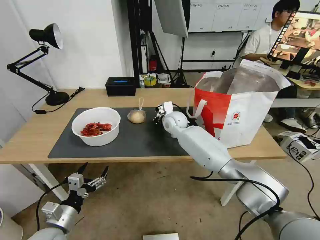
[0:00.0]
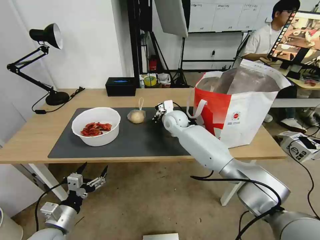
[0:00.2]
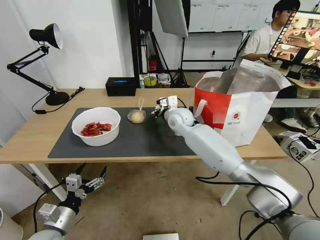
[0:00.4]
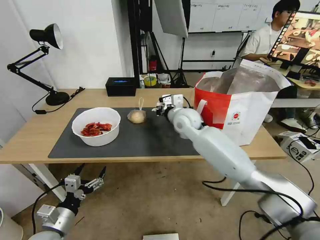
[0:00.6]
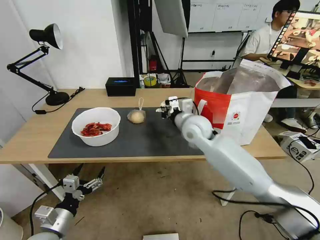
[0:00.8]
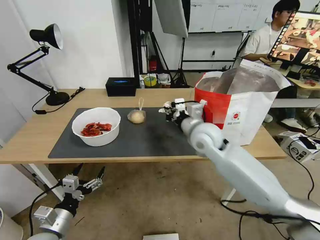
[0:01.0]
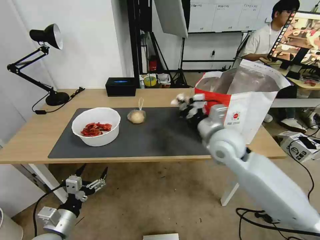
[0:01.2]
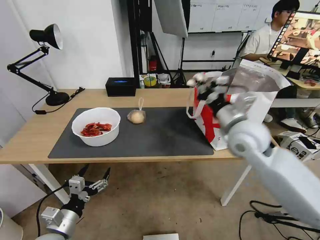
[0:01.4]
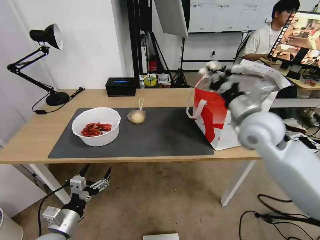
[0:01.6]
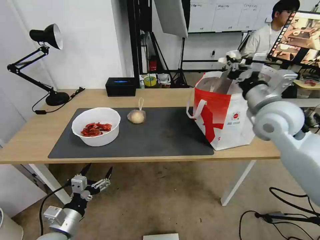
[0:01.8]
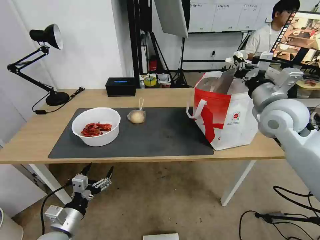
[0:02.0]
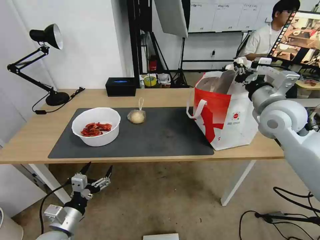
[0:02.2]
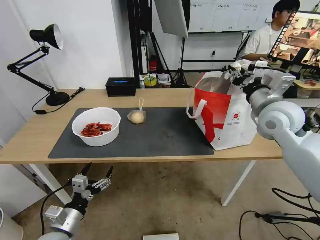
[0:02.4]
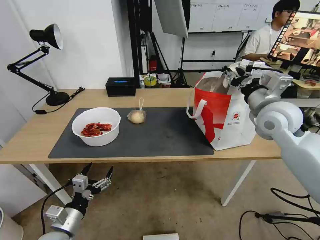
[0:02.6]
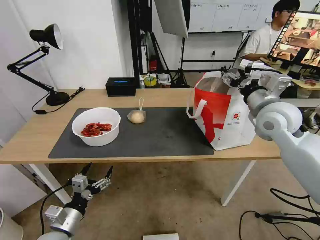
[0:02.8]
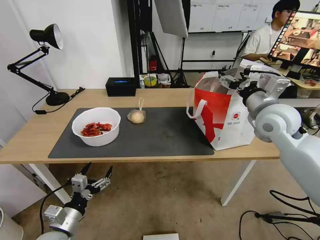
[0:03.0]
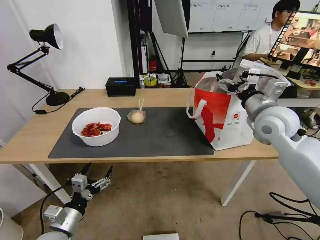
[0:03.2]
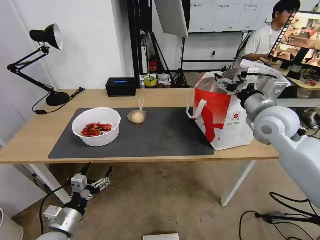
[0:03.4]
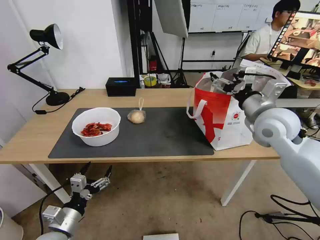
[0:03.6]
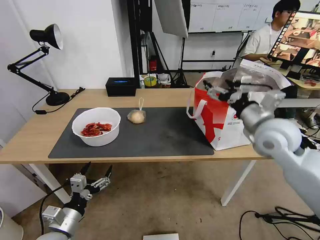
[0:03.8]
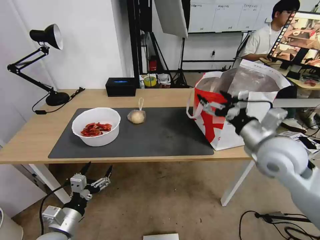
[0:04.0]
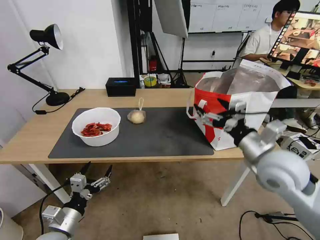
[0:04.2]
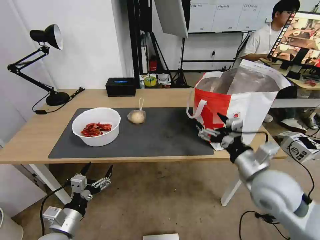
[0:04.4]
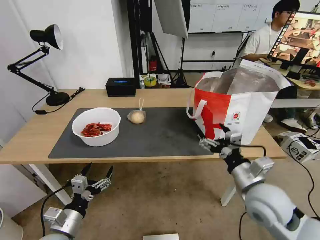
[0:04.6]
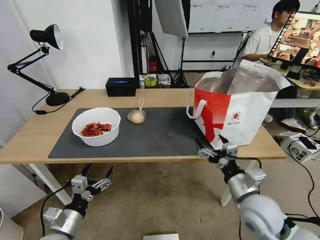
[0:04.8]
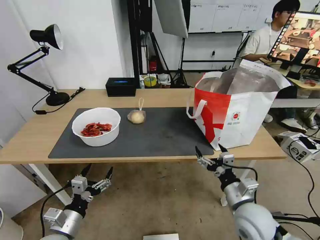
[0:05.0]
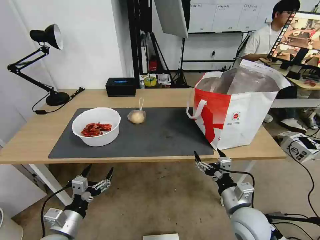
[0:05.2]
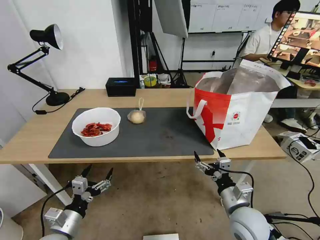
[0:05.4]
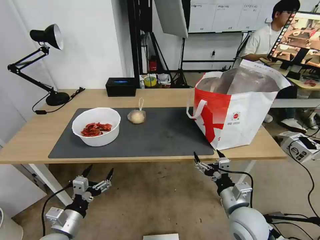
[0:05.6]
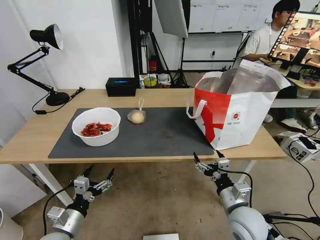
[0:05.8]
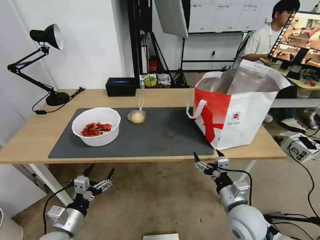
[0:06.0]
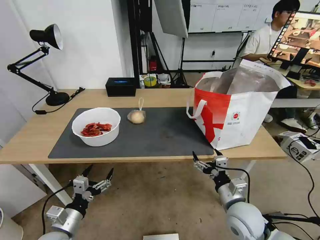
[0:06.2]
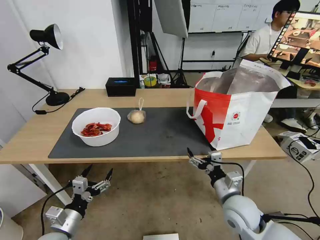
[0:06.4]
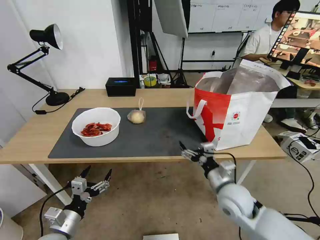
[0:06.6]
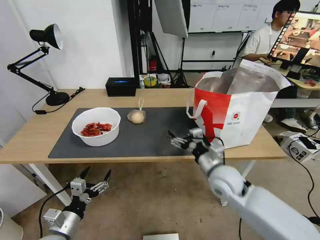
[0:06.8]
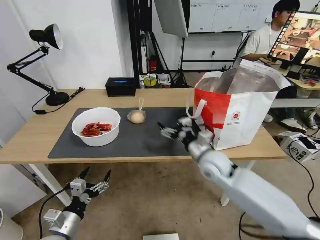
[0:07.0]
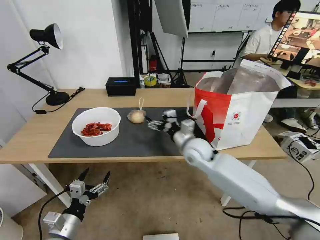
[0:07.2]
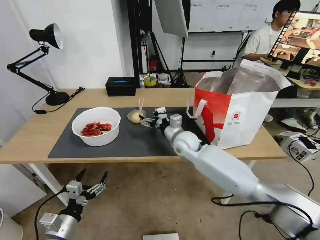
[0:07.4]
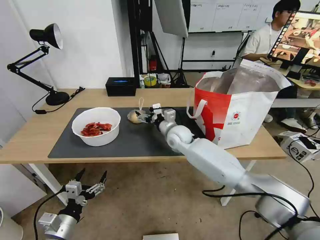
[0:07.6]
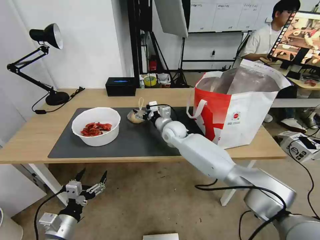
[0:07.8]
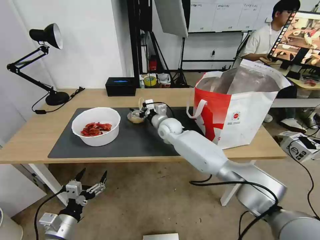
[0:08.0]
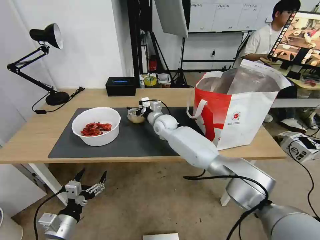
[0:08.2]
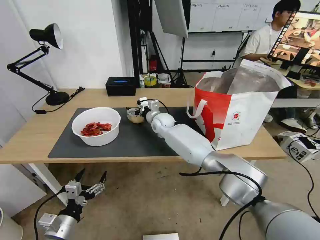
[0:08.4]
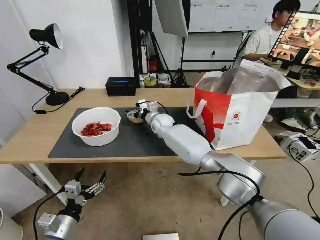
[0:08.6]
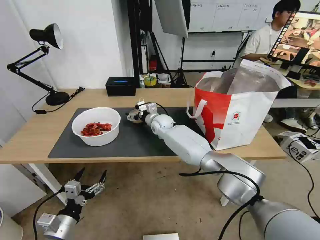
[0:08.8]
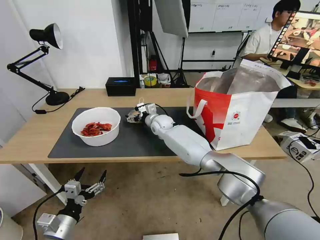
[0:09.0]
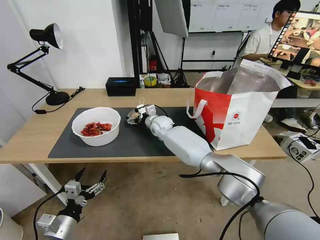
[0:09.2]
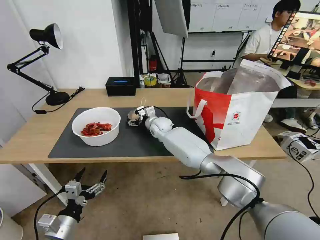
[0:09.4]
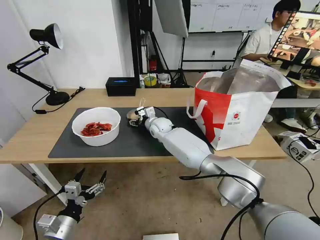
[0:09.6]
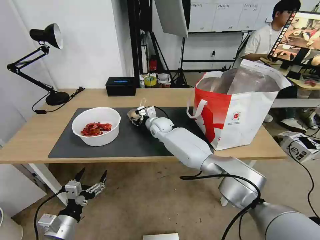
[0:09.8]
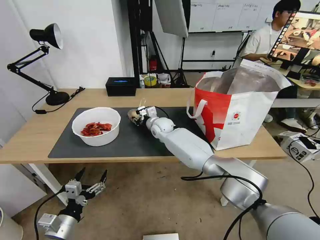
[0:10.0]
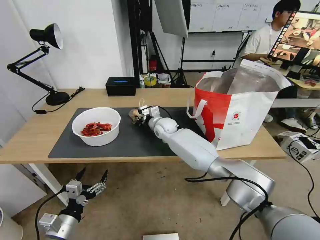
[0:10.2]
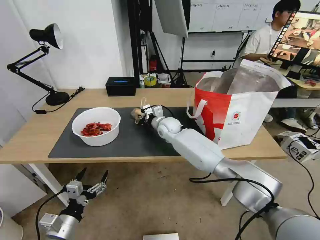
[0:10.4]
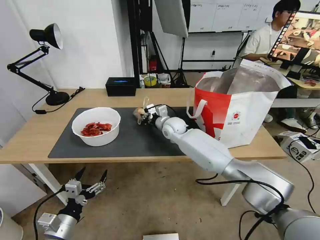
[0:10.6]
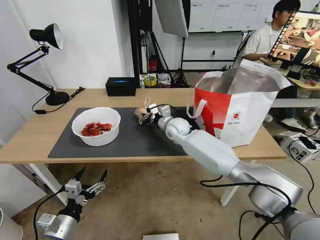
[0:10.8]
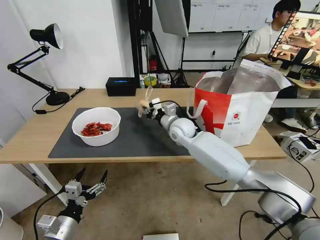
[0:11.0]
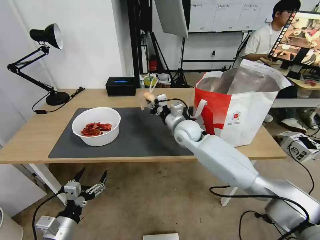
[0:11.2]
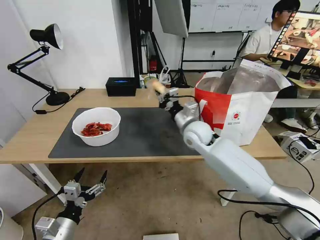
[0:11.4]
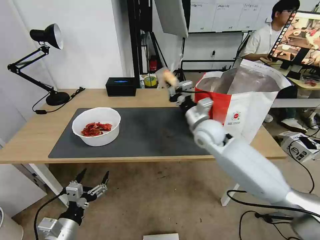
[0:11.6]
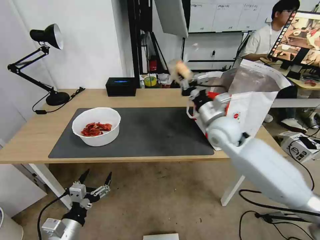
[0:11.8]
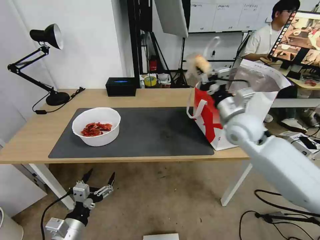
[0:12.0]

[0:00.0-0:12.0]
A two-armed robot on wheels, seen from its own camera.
Task of the whole recording: Pick up the trash from the table and place it into the takeout bag.
0:00.0 to 0:01.6: The right gripper heads to the right, backward and upward, covering roughly 30 cm.
0:01.6 to 0:03.0: The right gripper changes place by approximately 5 cm, and opens.
0:03.0 to 0:04.4: The right gripper shifts roughly 15 cm backward and downward.
0:04.4 to 0:06.0: The right gripper goes roughly 15 cm downward.
0:06.0 to 0:07.6: The right gripper shifts roughly 35 cm forward and to the left.
0:07.6 to 0:09.0: The right gripper is displaced forward and to the left by approximately 10 cm.
0:09.0 to 0:10.4: The right gripper closes its fingers.
0:10.4 to 0:12.0: The right gripper is displaced to the right, backward and upward by approximately 30 cm.

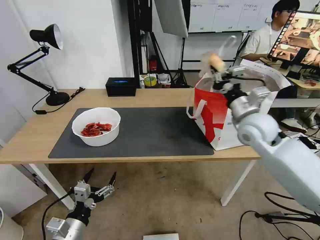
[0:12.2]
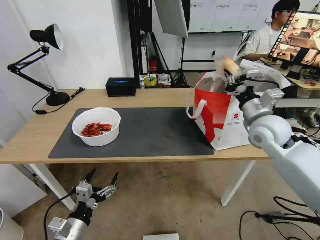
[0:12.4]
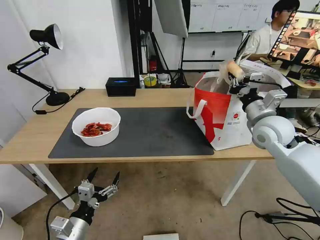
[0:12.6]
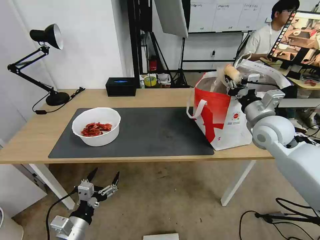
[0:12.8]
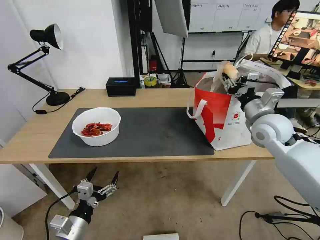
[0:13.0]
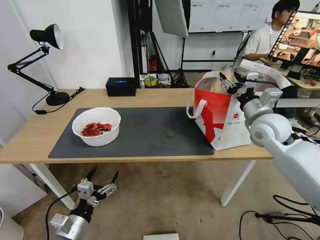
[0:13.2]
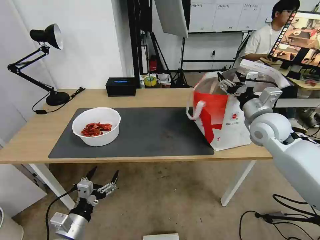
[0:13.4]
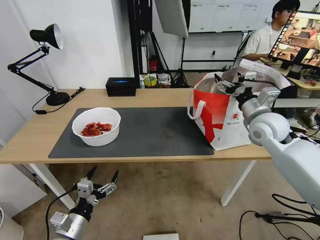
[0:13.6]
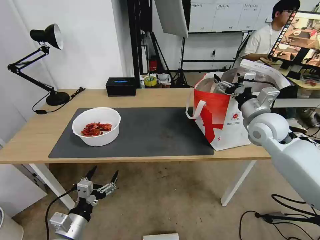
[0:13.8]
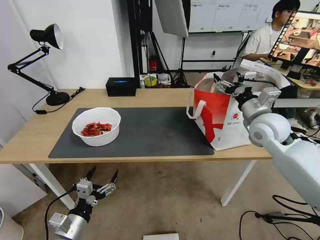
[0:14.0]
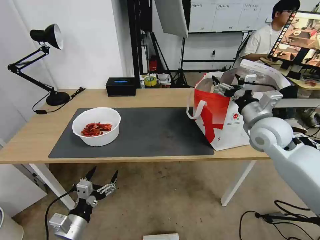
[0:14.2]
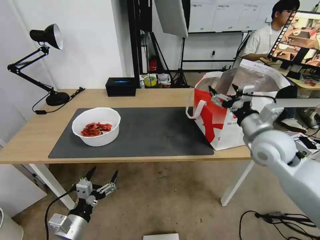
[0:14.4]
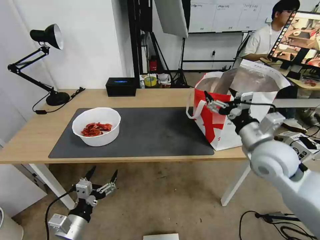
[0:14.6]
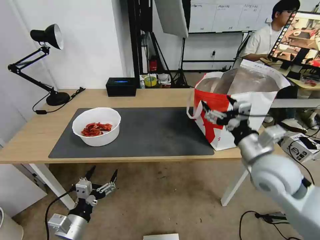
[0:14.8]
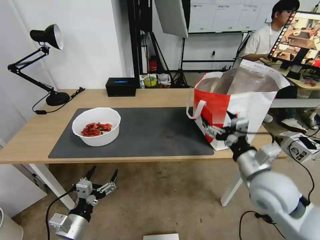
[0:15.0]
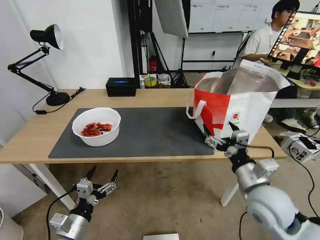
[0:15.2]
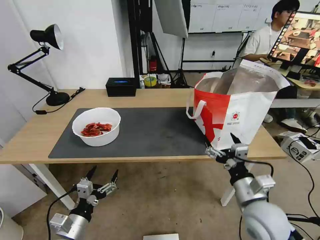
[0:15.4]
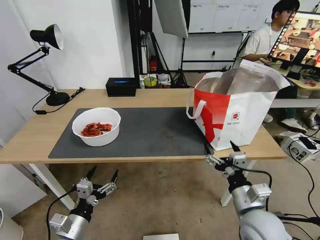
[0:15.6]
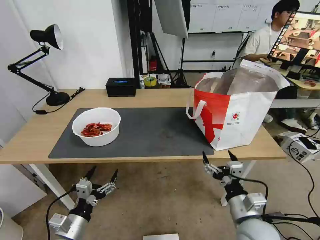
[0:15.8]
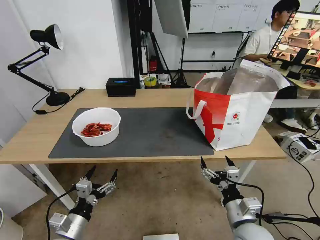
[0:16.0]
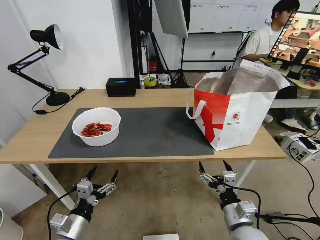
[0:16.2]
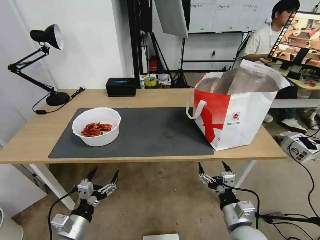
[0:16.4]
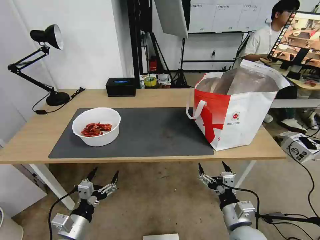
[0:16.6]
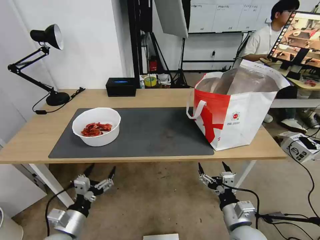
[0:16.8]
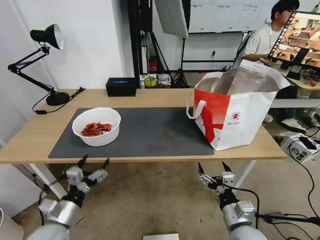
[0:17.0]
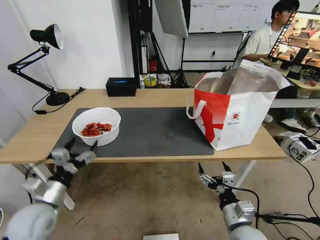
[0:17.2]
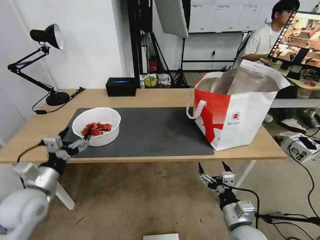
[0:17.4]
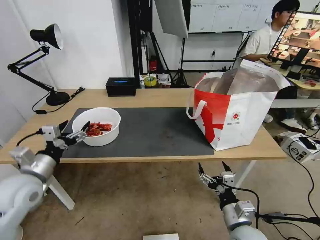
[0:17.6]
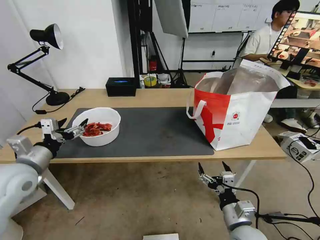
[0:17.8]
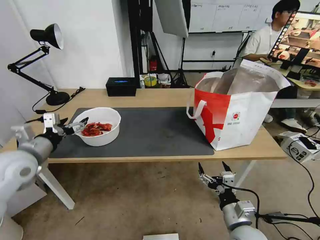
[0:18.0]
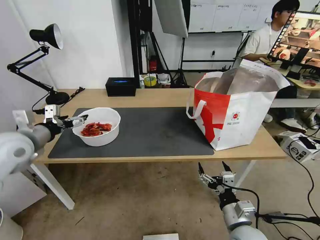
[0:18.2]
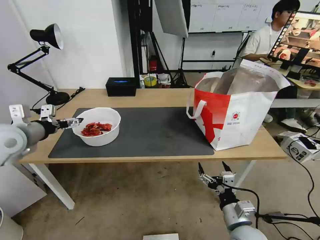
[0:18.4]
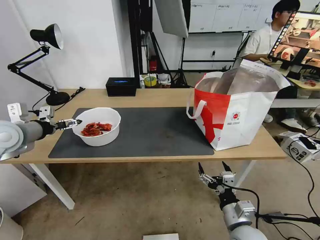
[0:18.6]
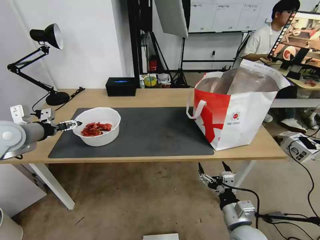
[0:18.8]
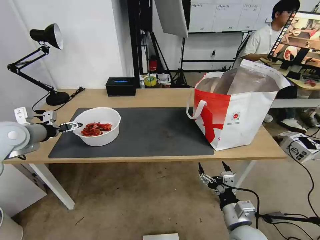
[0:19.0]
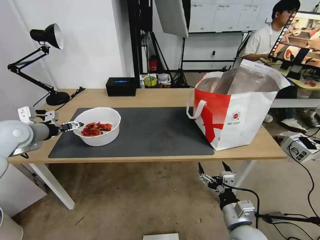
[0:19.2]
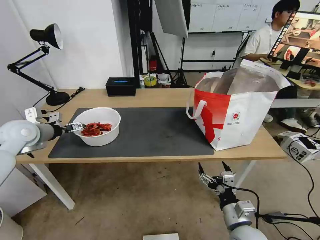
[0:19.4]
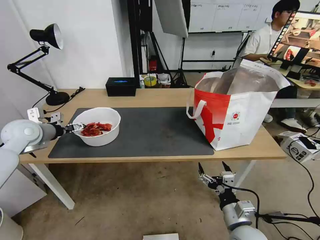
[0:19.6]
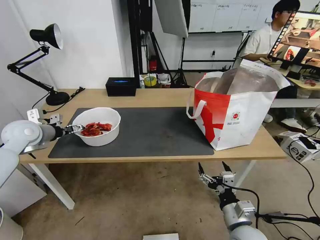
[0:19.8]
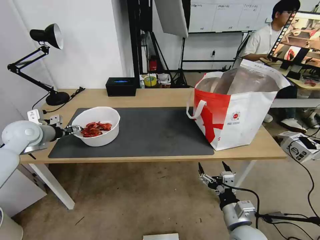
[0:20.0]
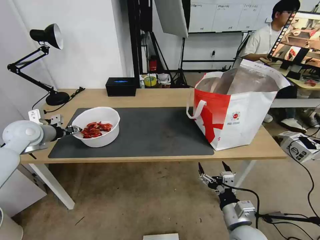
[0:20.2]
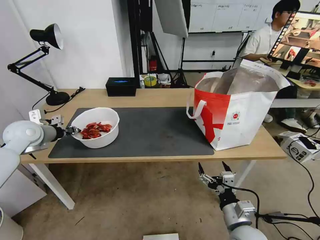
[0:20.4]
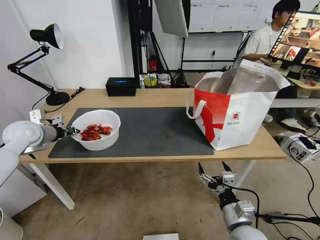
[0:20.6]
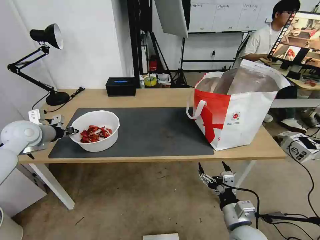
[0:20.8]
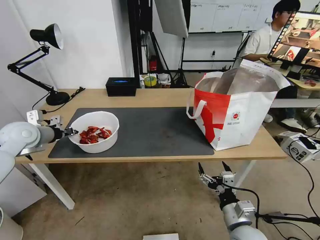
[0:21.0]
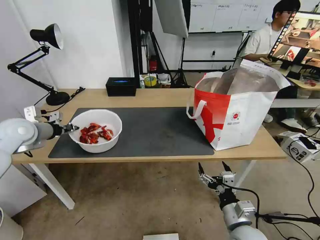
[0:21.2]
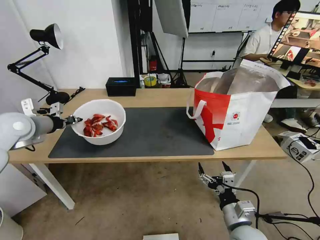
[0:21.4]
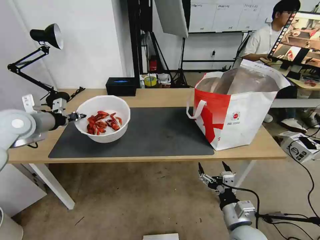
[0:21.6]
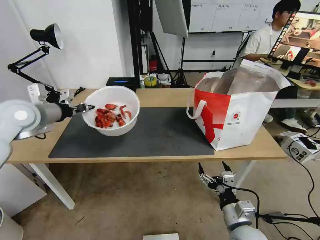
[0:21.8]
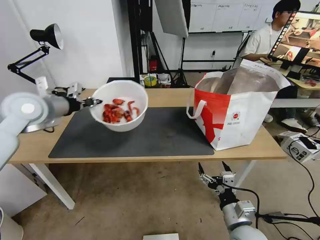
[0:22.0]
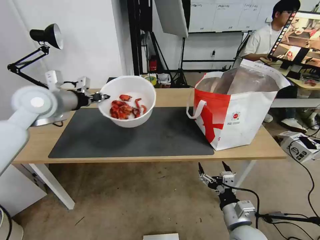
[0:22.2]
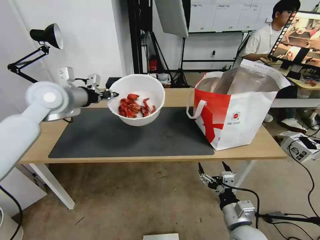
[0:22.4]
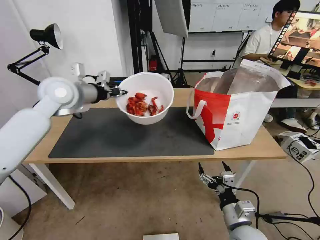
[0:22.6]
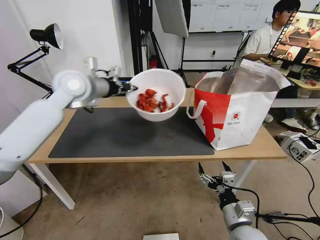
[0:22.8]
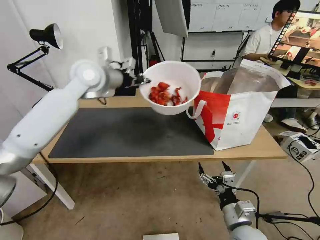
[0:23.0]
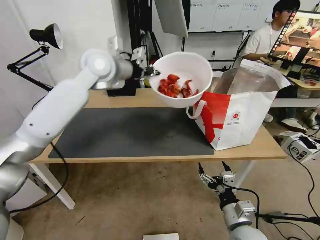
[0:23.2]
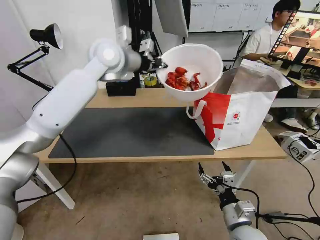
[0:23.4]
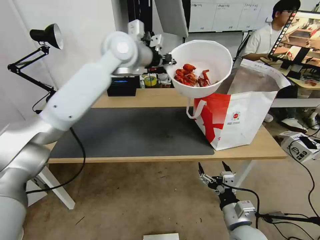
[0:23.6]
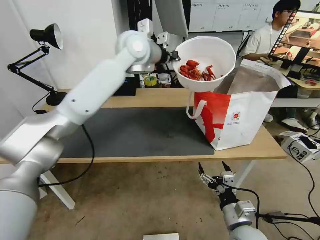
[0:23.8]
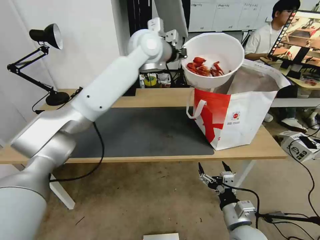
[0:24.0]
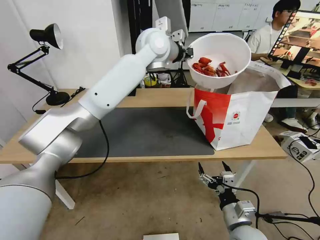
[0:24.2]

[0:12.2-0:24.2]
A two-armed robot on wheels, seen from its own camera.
Task of the whole recording: Pick up the trash from the table and place it into the takeout bag.
0:12.2 to 0:13.8: The right gripper opens.
0:13.8 to 0:15.2: The right gripper moves backward and downward, about 20 cm.
0:15.2 to 0:16.6: The right gripper is displaced downward and backward by approximately 15 cm.
0:16.6 to 0:18.2: The left gripper shifts approximately 30 cm upward, forward and to the left.
0:18.2 to 0:19.8: The left gripper travels forward by roughly 10 cm.
0:19.8 to 0:21.2: The left gripper closes up.
0:21.2 to 0:22.6: The left gripper goes about 20 cm to the right and upward.
0:22.6 to 0:24.2: The left gripper heads to the right, covering approximately 25 cm.
